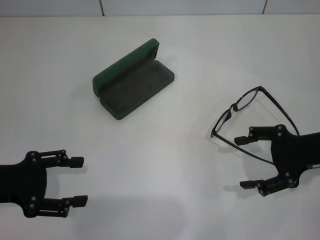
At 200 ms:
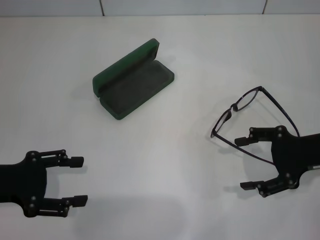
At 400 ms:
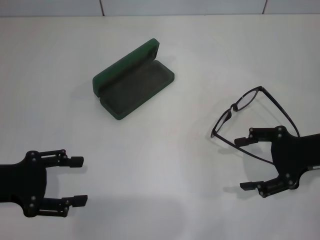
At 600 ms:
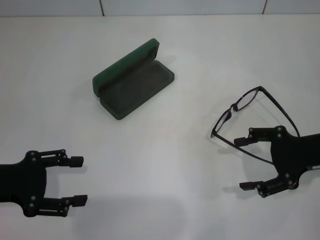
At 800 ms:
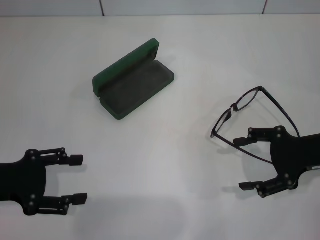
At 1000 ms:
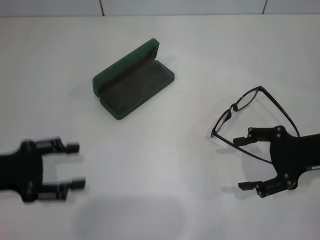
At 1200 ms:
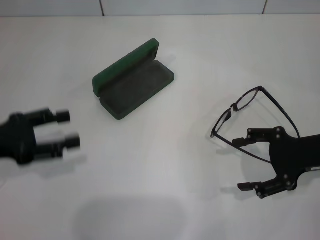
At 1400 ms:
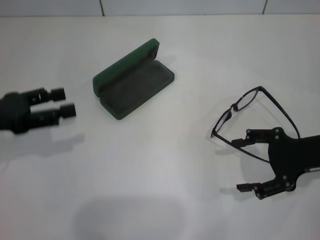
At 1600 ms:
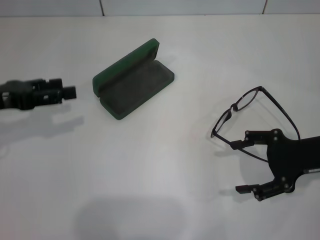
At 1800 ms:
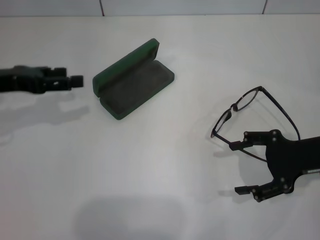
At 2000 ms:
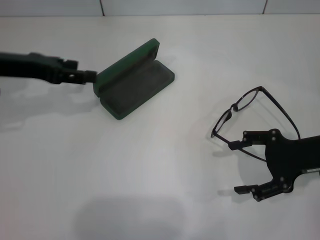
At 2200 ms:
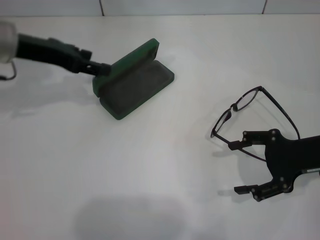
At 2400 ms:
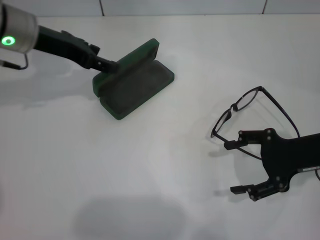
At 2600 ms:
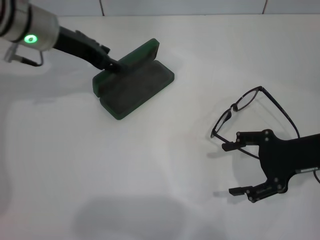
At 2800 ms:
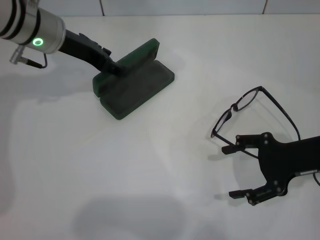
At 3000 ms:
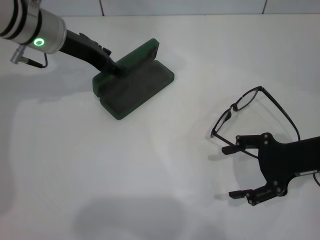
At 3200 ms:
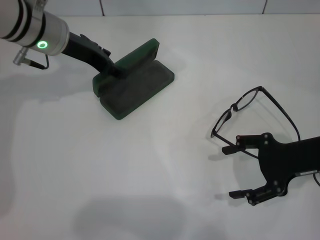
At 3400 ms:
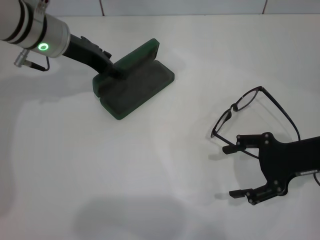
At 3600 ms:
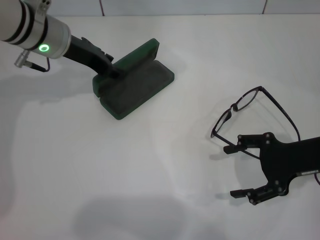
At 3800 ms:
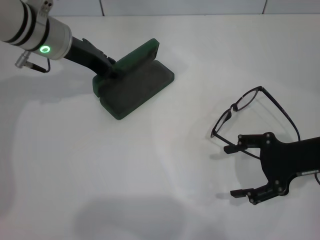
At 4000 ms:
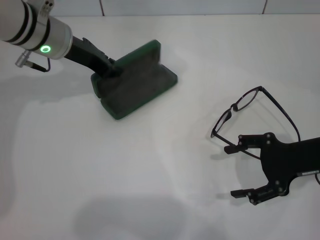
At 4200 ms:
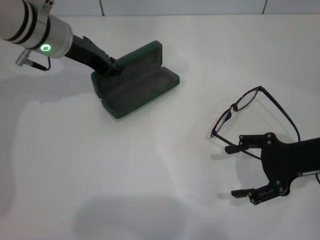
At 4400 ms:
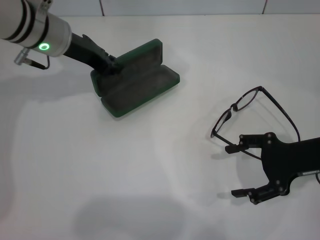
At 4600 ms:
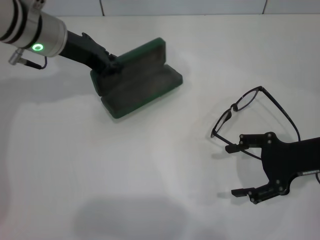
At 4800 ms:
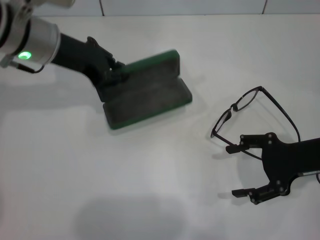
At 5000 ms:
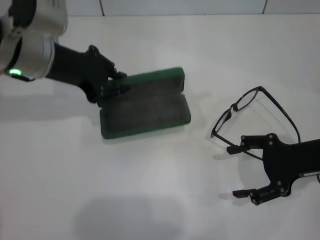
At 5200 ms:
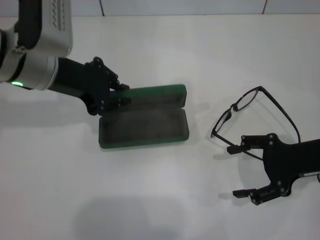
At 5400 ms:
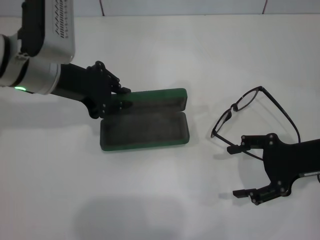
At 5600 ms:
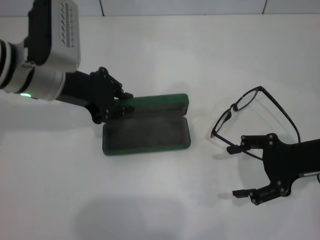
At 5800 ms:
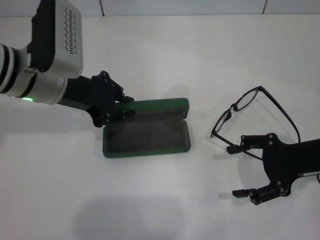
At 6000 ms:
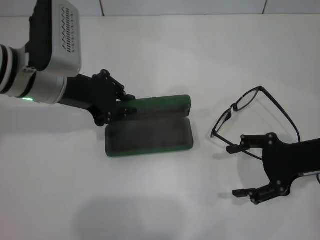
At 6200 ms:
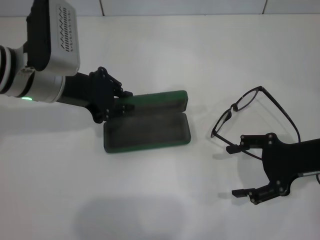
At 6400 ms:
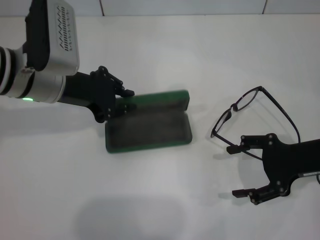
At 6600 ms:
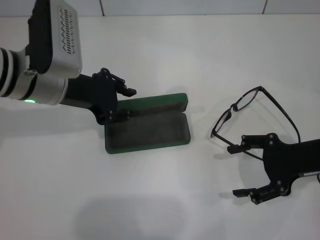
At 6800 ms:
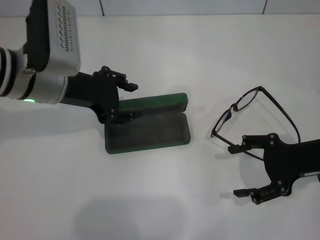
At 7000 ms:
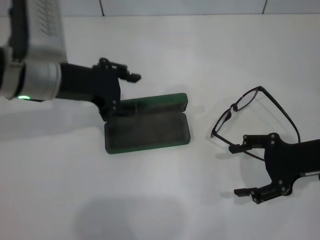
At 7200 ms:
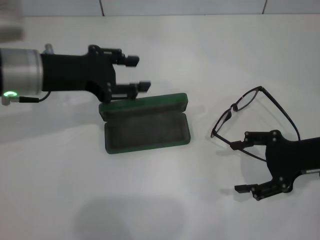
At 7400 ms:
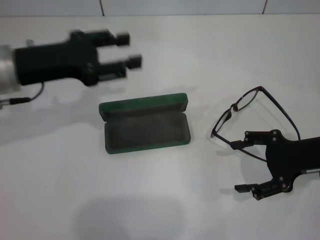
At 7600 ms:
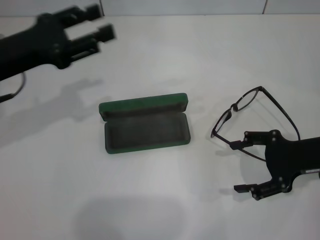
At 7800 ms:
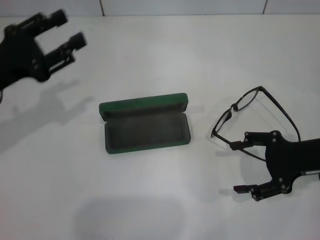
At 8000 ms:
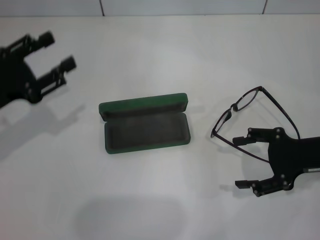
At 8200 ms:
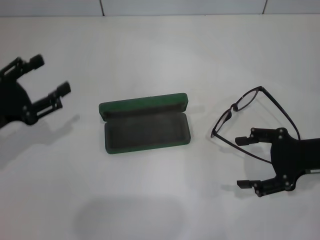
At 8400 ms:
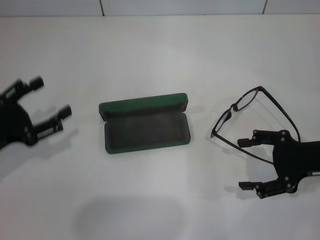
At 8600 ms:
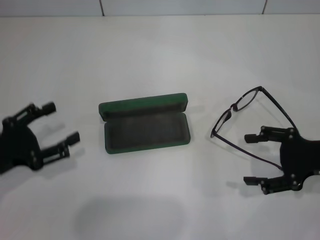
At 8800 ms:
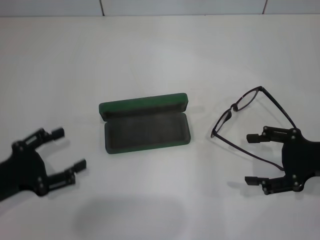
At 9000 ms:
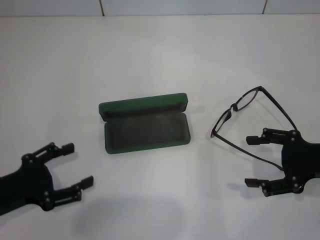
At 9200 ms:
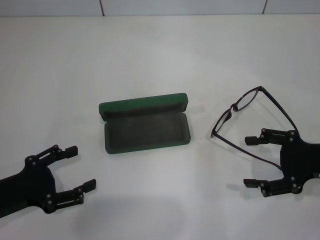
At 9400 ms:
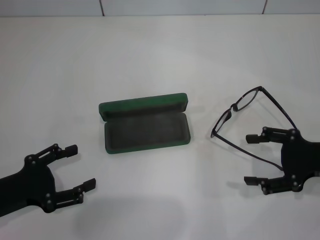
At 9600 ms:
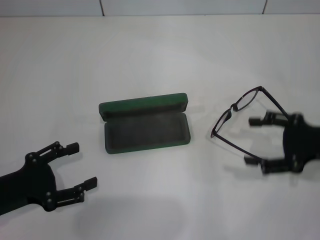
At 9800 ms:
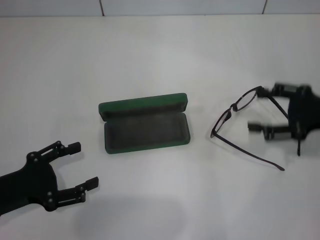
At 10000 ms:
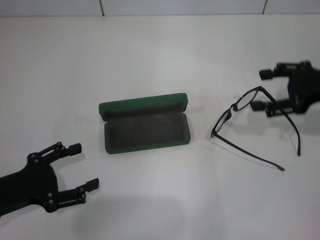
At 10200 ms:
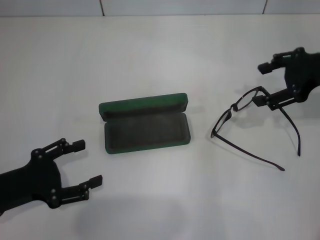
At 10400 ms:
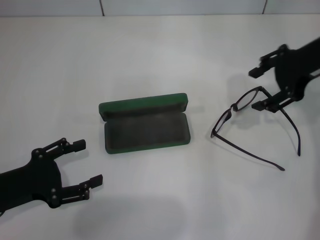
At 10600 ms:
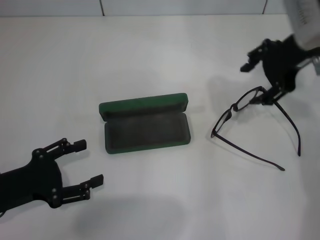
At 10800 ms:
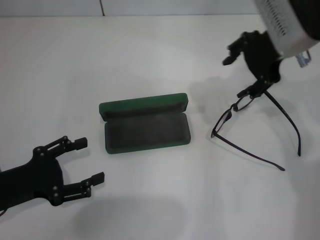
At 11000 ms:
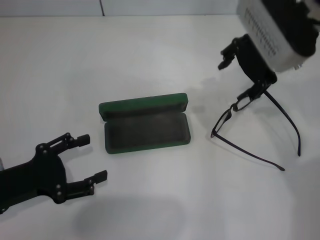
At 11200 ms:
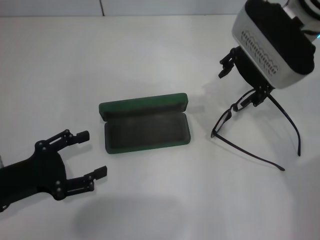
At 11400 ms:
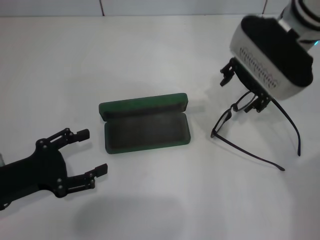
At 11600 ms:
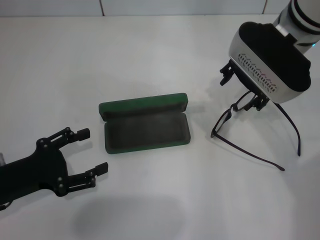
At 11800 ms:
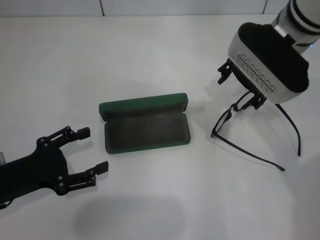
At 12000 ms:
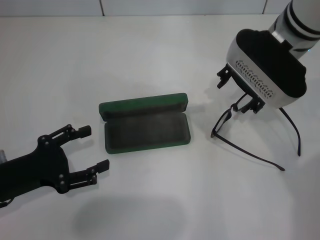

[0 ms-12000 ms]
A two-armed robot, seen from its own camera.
Step, 0 ms to 4000 ms: Grab the glasses case with your left hand.
Step, 4200 ms to 6400 ms: Place the glasses case in the center of the table with your left hand.
0 ms to 1600 ms: The left gripper heads forward, covering roughly 10 cm.
1600 ms to 3000 ms: The left gripper is displaced to the right and forward by approximately 20 cm.
3000 ms to 4400 ms: The left gripper closes its fingers.
4400 ms to 6000 ms: The left gripper heads backward, covering approximately 5 cm.
6000 ms to 7600 ms: The left gripper moves to the left, roughly 10 cm, and opens up.
7600 ms to 9000 ms: The left gripper travels backward and downward by roughly 15 cm.
9000 ms to 10400 ms: The right gripper is displaced upward, forward and to the left by approximately 20 cm.
10400 ms to 12000 ms: The right gripper moves to the left, roughly 10 cm.

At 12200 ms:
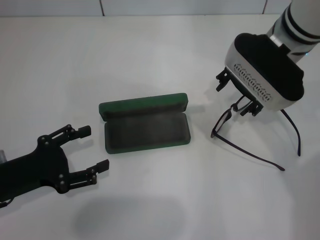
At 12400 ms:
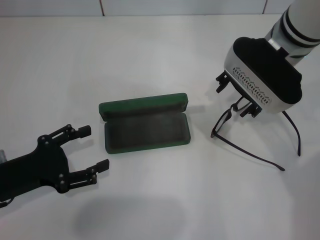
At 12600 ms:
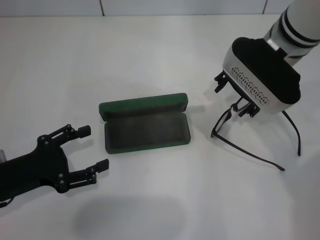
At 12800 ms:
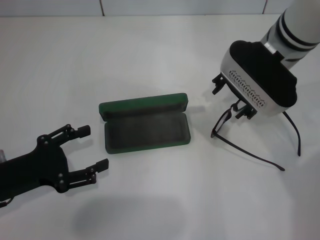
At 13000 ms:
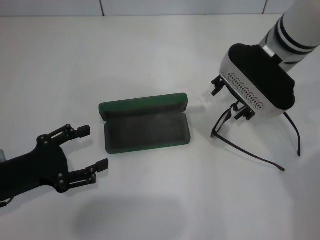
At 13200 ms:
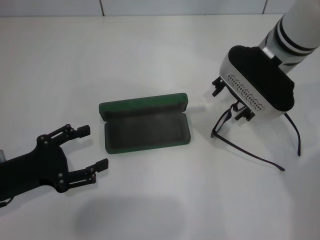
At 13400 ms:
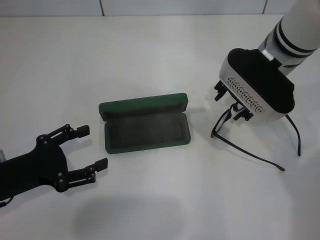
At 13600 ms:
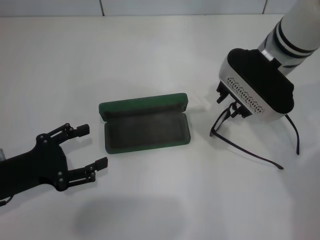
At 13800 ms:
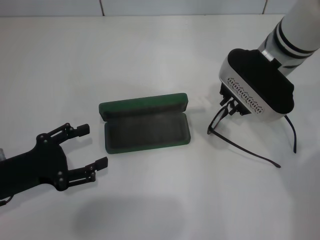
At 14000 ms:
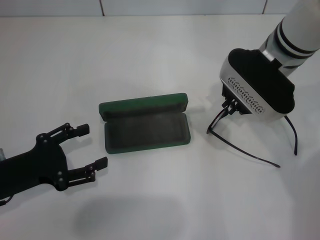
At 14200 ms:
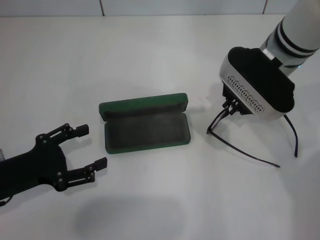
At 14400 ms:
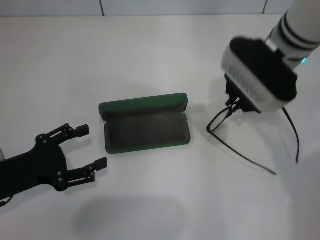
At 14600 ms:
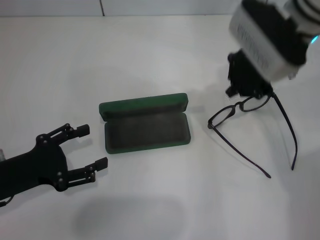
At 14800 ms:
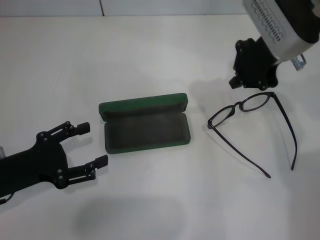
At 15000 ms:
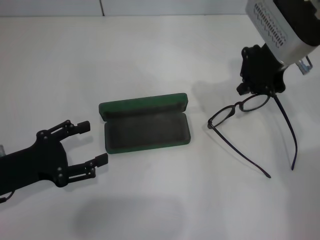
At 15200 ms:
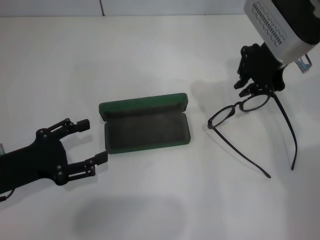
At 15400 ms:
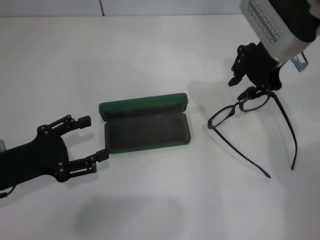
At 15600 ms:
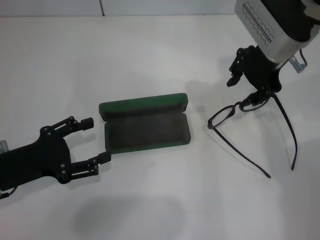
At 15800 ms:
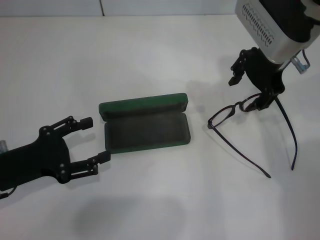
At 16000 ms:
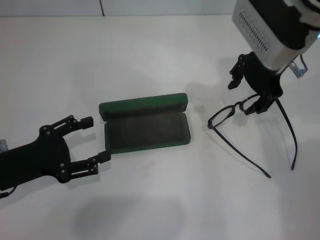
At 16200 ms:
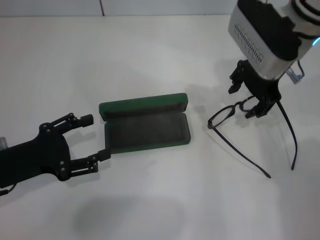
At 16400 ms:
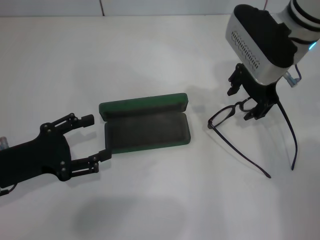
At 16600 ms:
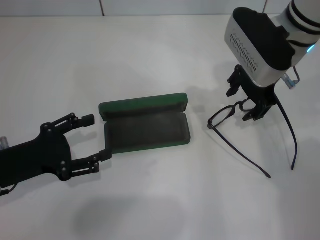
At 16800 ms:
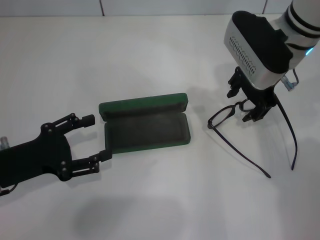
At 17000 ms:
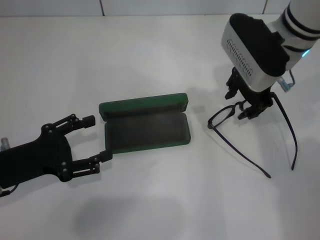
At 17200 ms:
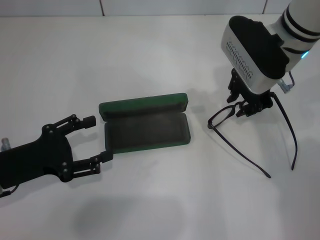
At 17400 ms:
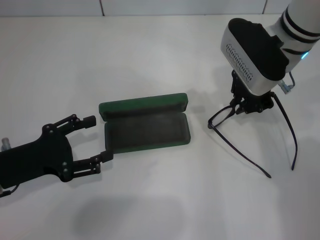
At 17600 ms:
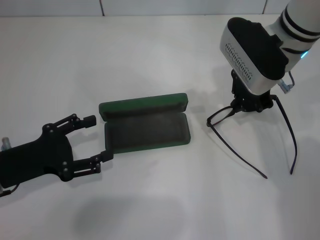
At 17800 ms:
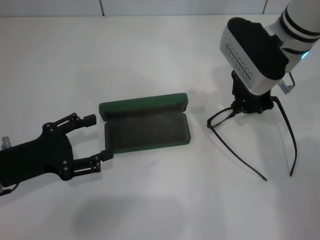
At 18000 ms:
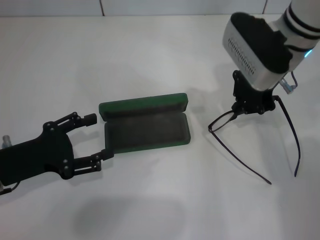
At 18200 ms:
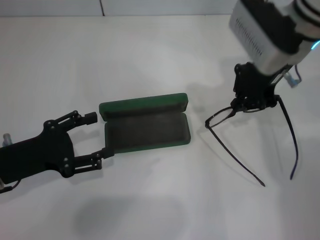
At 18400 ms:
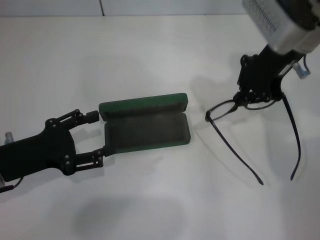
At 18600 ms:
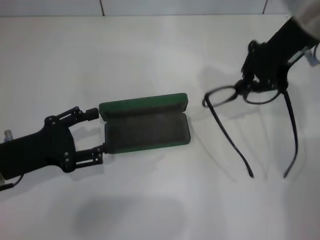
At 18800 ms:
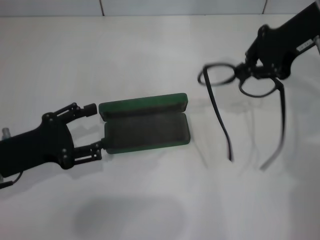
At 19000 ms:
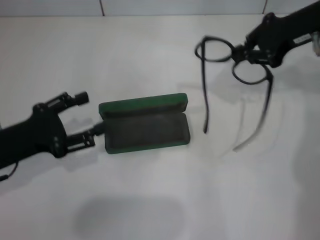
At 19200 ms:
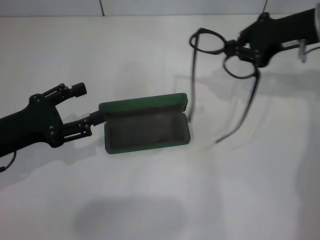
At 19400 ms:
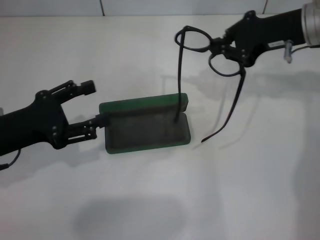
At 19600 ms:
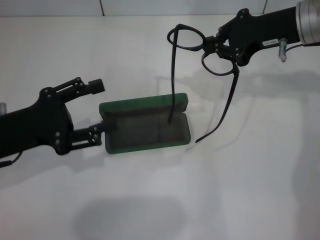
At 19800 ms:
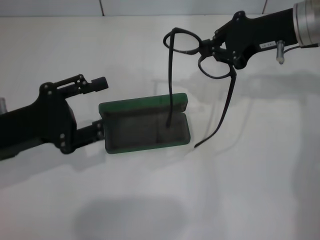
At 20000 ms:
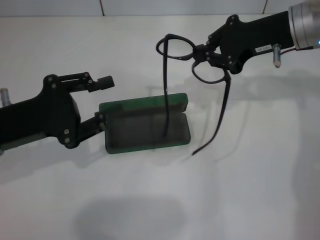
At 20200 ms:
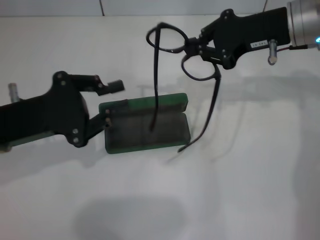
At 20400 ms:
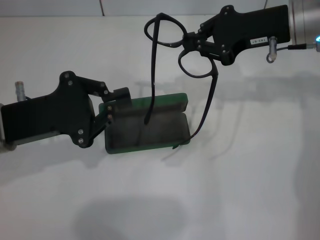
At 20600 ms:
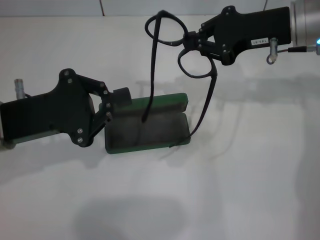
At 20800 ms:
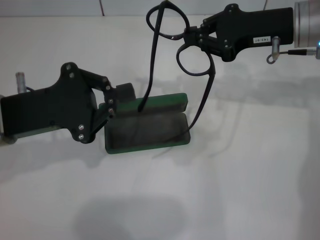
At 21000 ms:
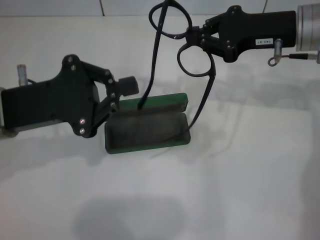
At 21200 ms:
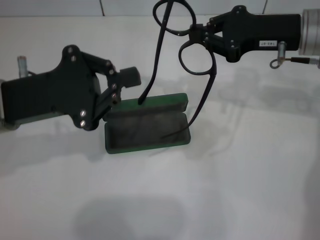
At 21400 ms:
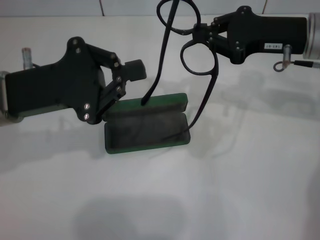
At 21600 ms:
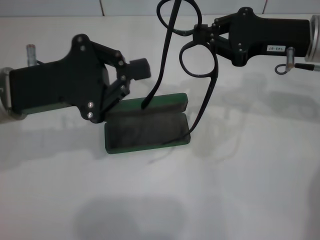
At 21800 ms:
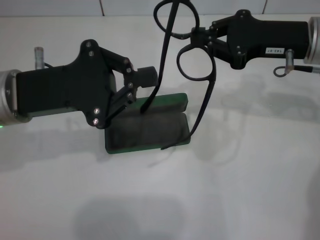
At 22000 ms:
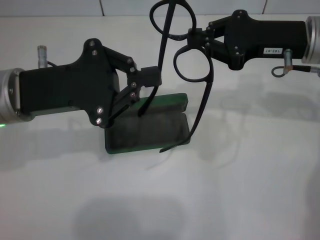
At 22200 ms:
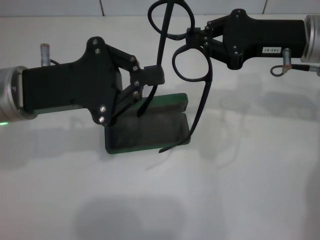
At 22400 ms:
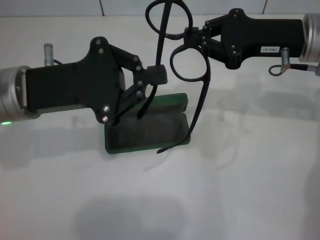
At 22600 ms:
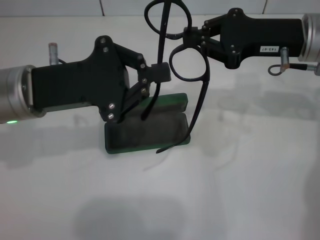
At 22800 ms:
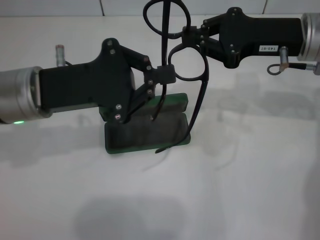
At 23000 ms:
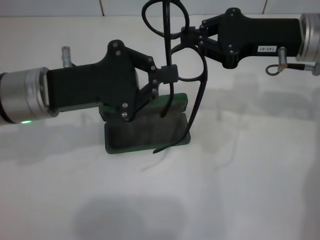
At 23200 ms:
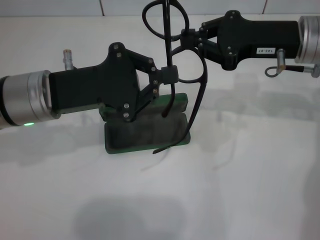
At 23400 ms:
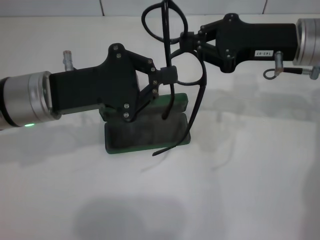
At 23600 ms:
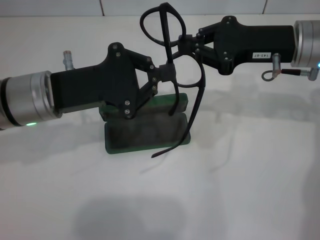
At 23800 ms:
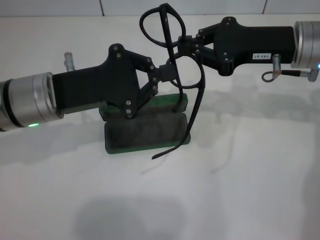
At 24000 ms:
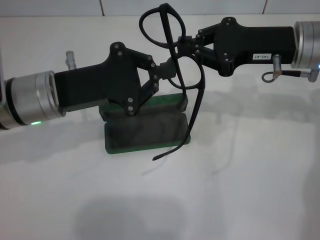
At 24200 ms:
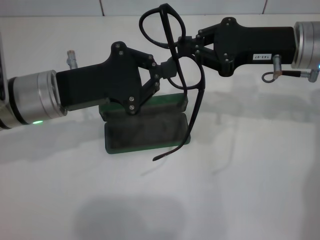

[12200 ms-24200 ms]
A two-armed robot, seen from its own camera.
Step, 12200 ms to 17600 ms: Grab the eyeglass frame with your right hand.
12200 ms to 13800 ms: The right gripper closes its fingers.
13800 ms to 15200 ms: The right gripper shifts about 5 cm upward.
15200 ms to 16600 ms: The right gripper opens up.
16600 ms to 18200 ms: The right gripper closes.
18200 ms to 19800 ms: The right gripper is displaced to the right by roughly 5 cm.
19800 ms to 21200 ms: The left gripper ends up about 5 cm from where it was, and closes.
21200 ms to 24200 ms: There are only small adjustments of the grippers.
